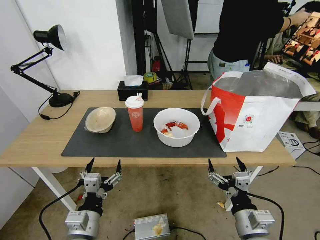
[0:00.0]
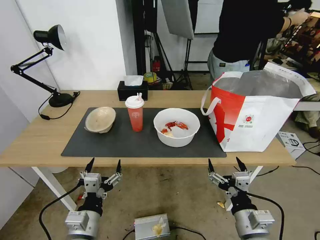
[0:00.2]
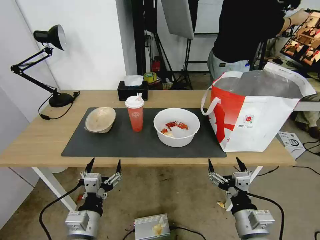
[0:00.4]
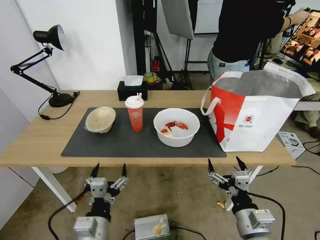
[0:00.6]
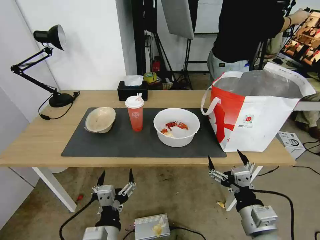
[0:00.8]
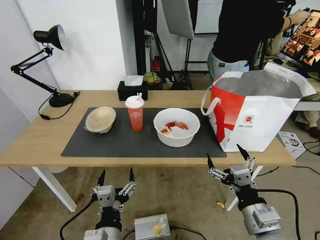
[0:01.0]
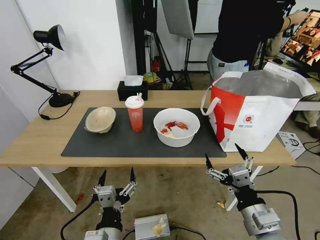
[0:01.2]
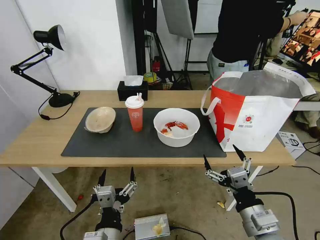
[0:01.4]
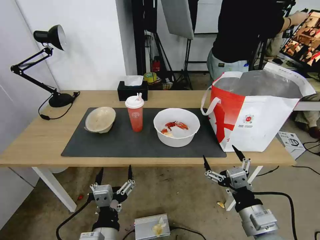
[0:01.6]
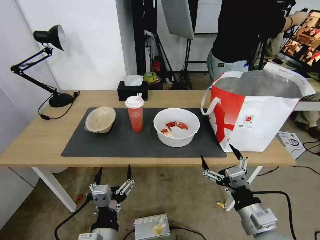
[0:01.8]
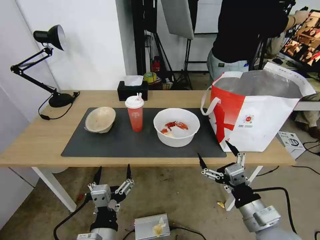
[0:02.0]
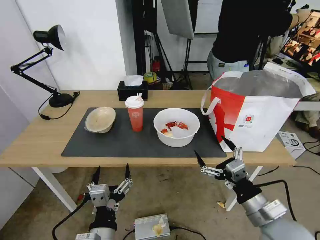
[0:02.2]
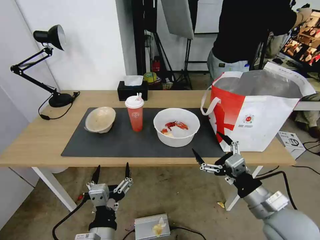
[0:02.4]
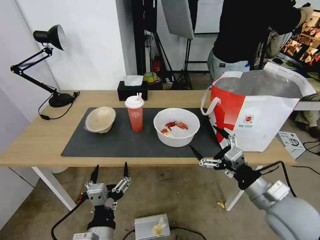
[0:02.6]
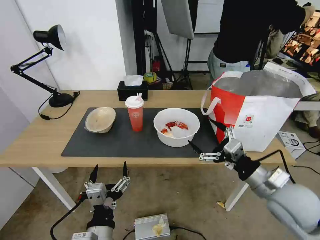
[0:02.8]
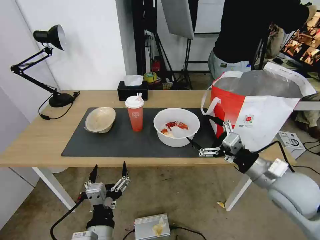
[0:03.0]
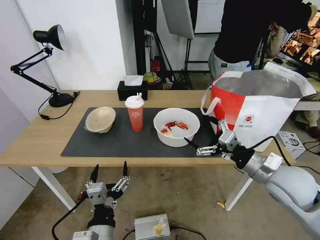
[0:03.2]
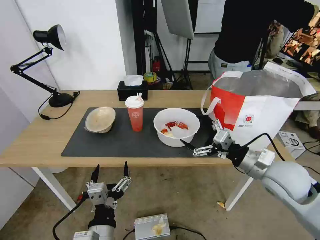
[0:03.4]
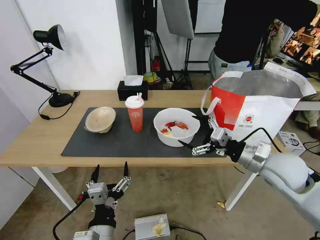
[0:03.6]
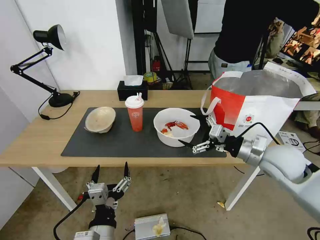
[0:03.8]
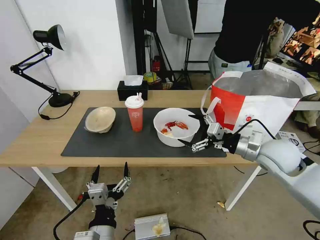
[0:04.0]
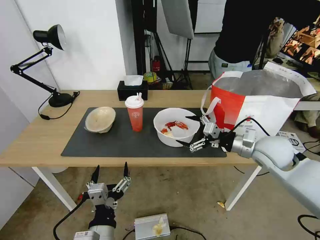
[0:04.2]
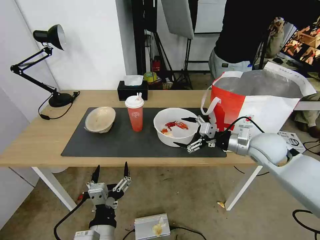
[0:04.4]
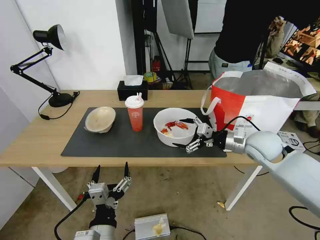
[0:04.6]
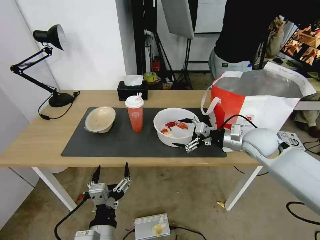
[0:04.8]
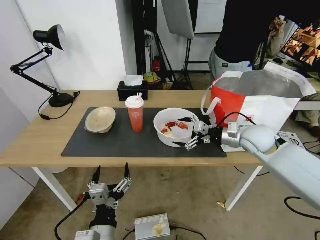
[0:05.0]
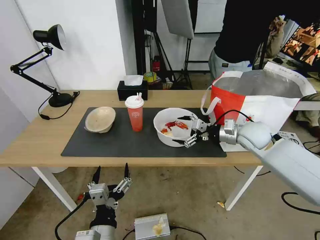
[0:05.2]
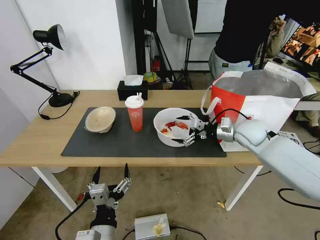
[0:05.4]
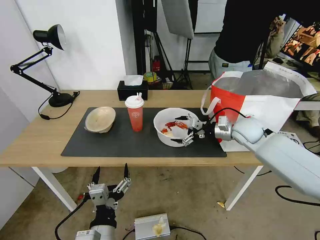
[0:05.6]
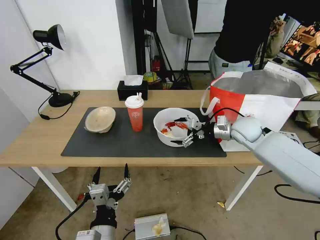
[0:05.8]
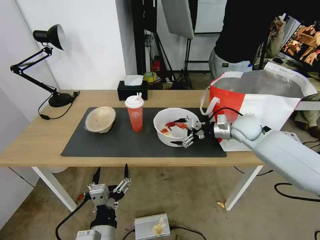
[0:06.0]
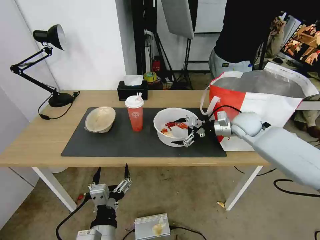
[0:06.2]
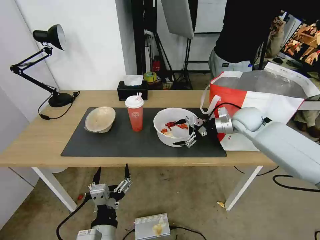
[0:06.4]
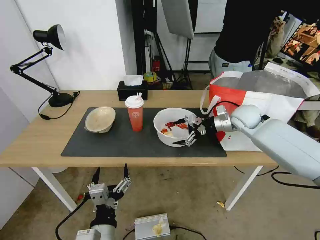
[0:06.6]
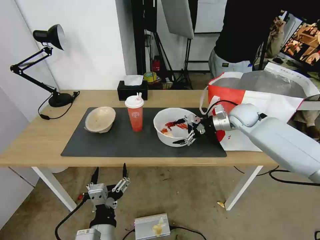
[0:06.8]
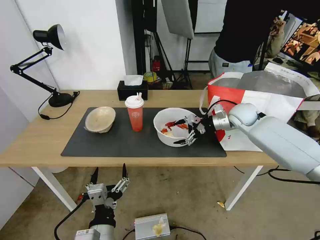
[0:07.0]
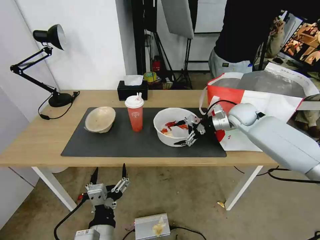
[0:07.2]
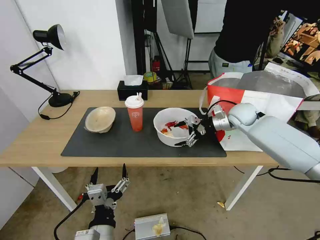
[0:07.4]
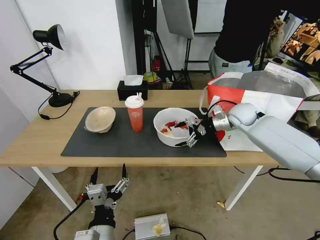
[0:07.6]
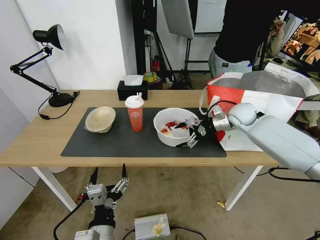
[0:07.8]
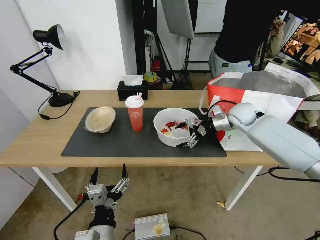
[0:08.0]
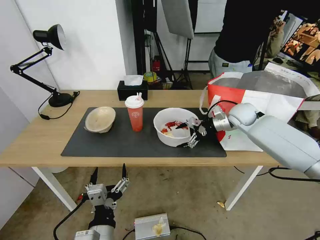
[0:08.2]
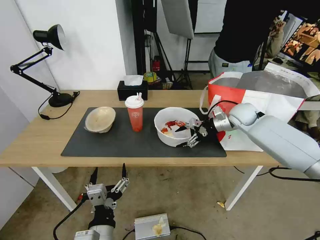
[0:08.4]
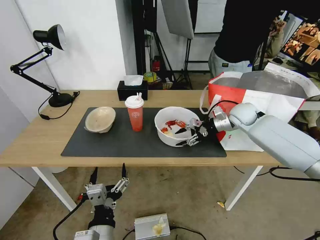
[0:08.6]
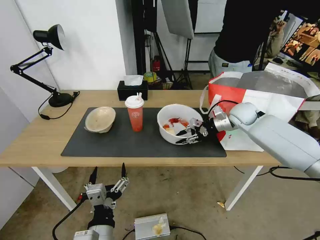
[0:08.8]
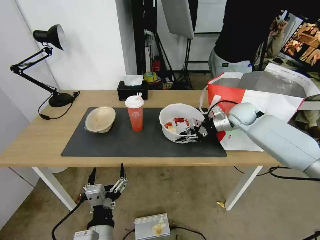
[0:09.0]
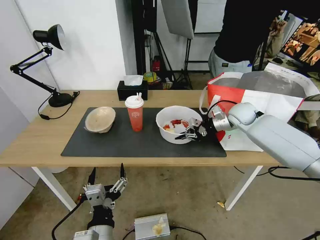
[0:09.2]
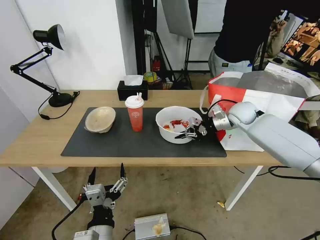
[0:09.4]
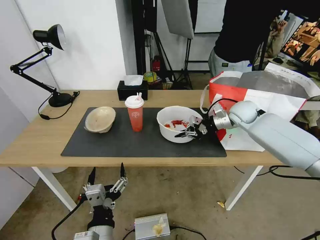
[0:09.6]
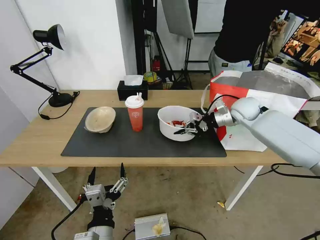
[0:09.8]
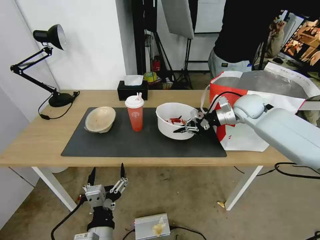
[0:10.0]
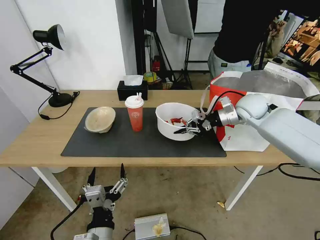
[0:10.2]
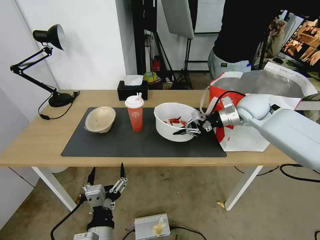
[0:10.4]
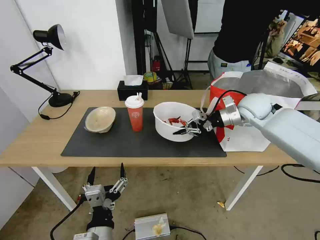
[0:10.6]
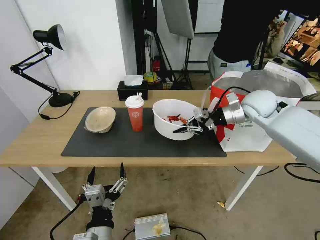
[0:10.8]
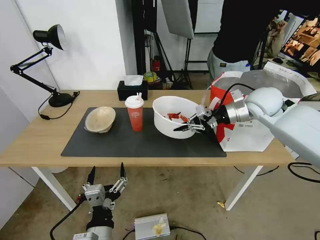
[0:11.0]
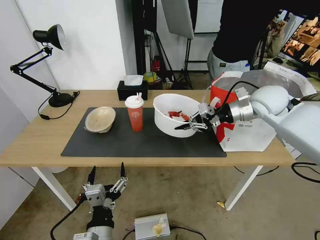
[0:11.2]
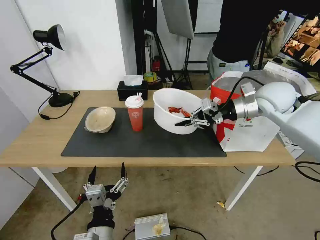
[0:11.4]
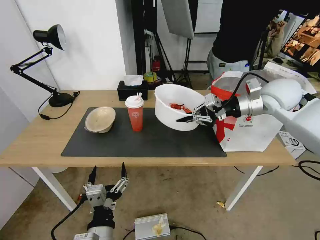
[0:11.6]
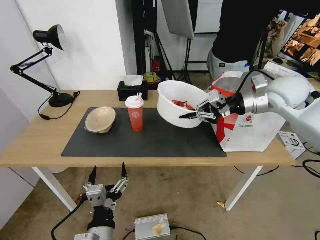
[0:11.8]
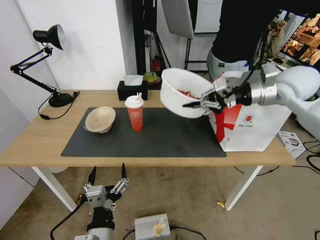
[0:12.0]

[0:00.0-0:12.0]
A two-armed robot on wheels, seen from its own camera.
Task of the whole recording: Pick up the trash from the table and place it into the takeout bag.
0:01.6 to 0:03.0: The right gripper shifts some 15 cm forward, to the right and upward.
0:03.0 to 0:04.4: The right gripper heads forward, covering about 15 cm.
0:04.4 to 0:06.0: The right gripper goes about 10 cm forward.
0:06.0 to 0:07.6: The right gripper shifts about 5 cm forward.
0:07.6 to 0:09.0: The right gripper closes its fingers.
0:09.0 to 0:10.4: The right gripper moves upward, roughly 5 cm.
0:10.4 to 0:12.0: The right gripper travels upward by roughly 10 cm.

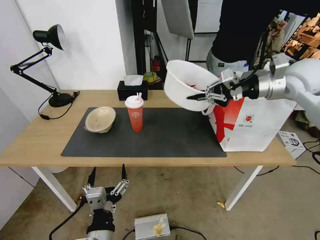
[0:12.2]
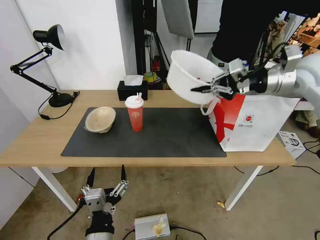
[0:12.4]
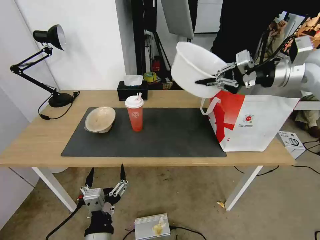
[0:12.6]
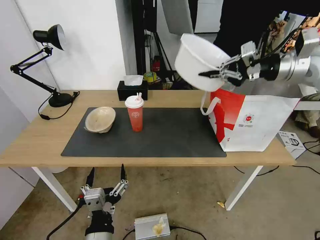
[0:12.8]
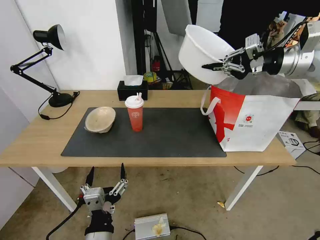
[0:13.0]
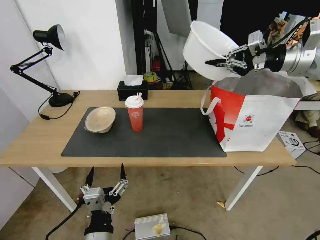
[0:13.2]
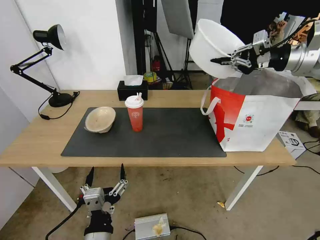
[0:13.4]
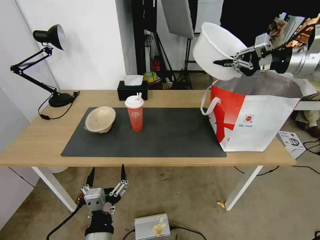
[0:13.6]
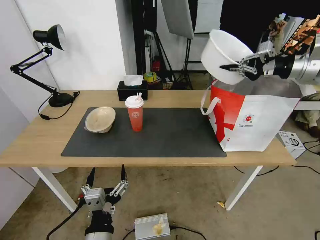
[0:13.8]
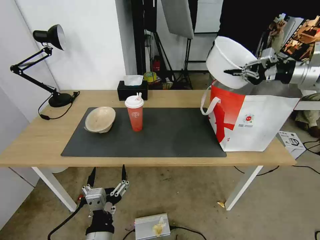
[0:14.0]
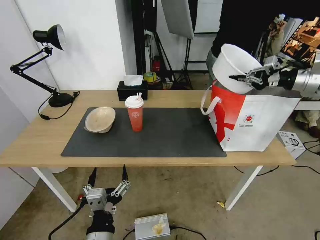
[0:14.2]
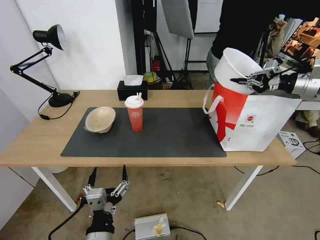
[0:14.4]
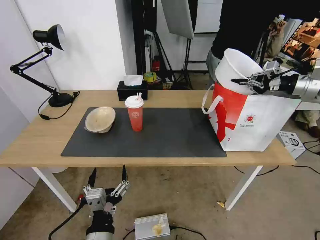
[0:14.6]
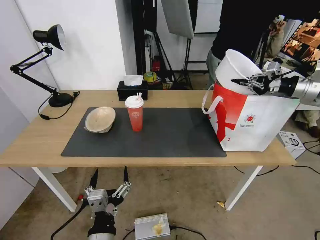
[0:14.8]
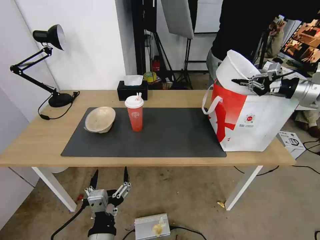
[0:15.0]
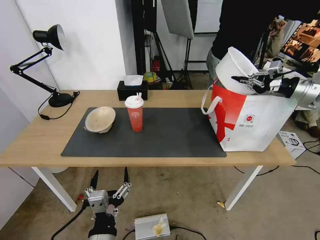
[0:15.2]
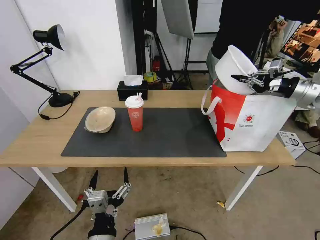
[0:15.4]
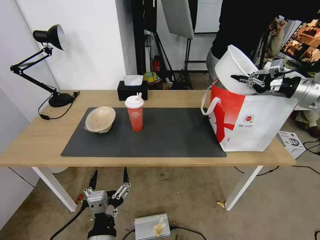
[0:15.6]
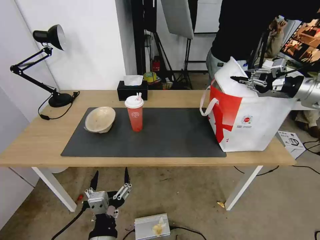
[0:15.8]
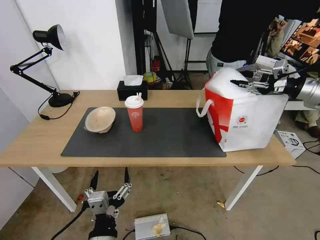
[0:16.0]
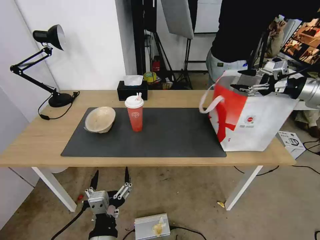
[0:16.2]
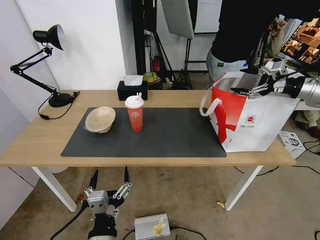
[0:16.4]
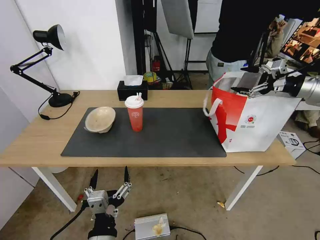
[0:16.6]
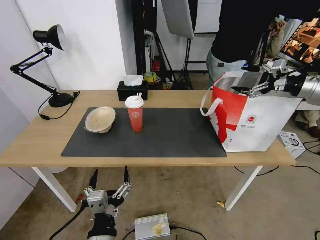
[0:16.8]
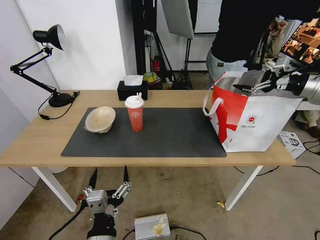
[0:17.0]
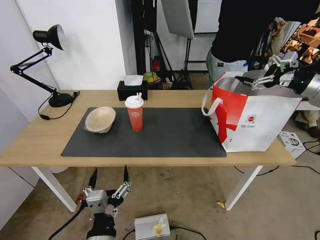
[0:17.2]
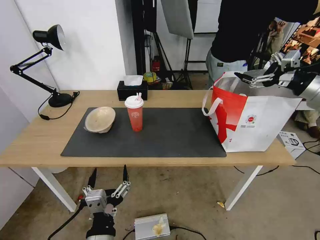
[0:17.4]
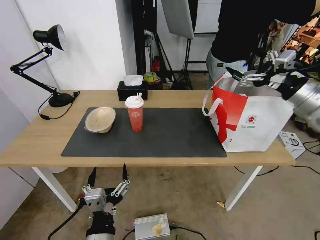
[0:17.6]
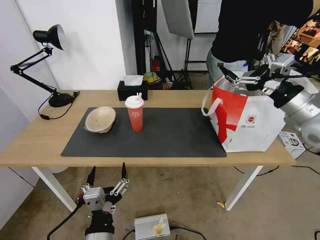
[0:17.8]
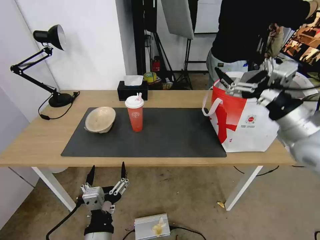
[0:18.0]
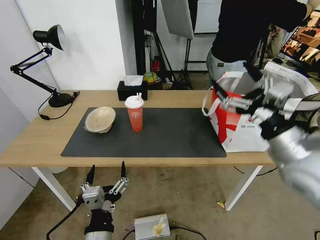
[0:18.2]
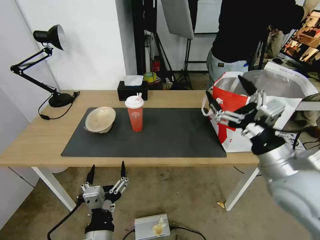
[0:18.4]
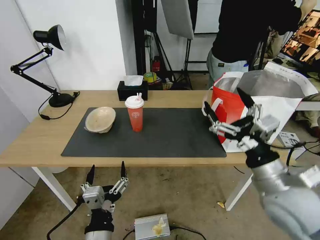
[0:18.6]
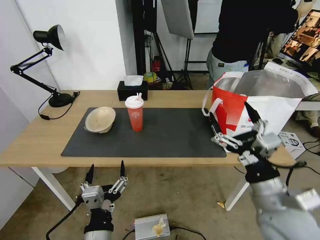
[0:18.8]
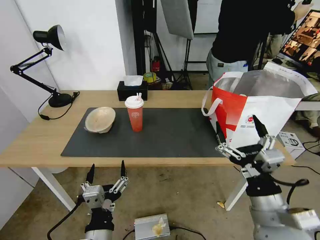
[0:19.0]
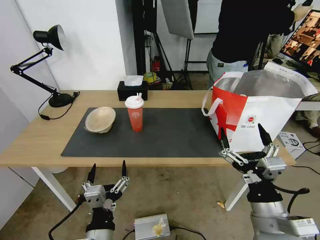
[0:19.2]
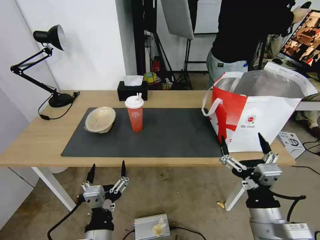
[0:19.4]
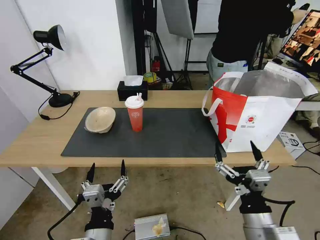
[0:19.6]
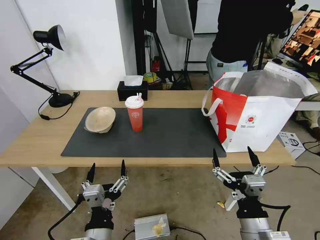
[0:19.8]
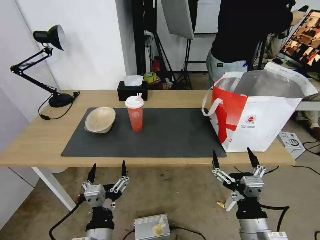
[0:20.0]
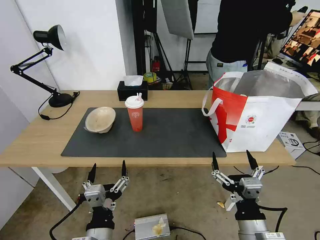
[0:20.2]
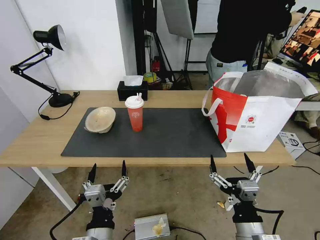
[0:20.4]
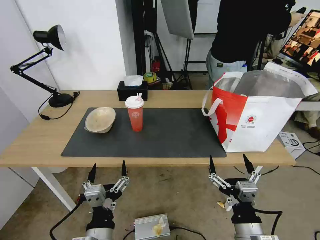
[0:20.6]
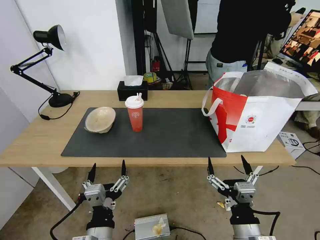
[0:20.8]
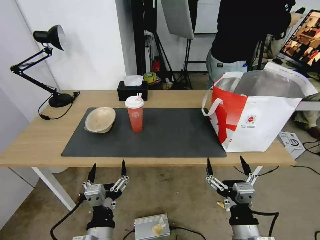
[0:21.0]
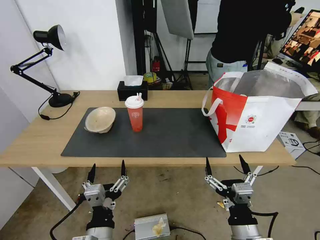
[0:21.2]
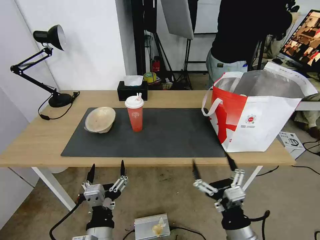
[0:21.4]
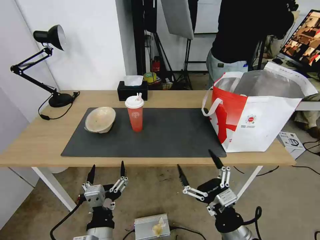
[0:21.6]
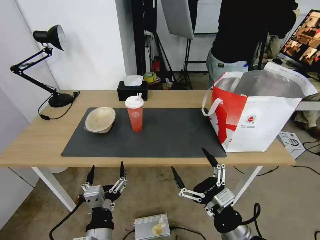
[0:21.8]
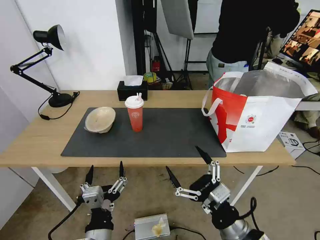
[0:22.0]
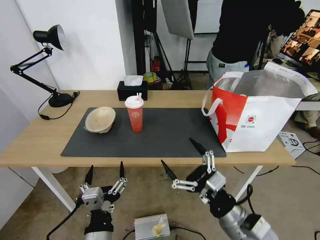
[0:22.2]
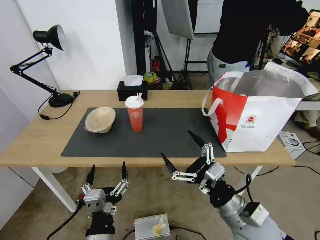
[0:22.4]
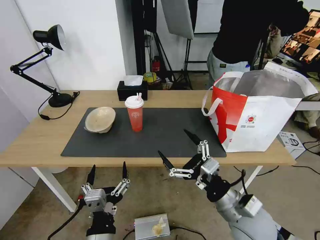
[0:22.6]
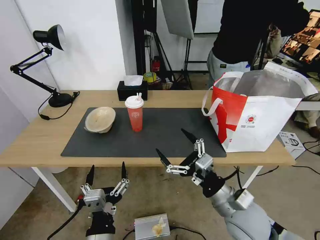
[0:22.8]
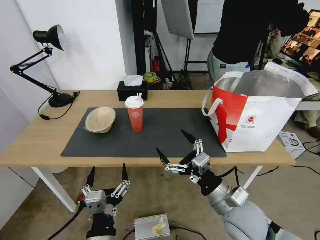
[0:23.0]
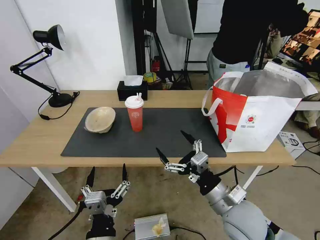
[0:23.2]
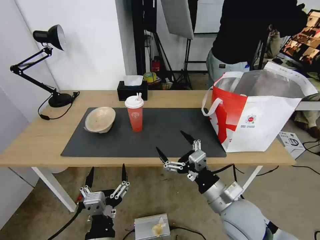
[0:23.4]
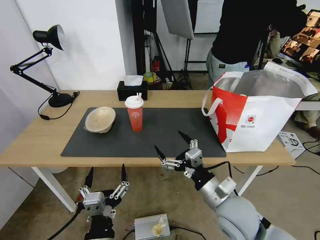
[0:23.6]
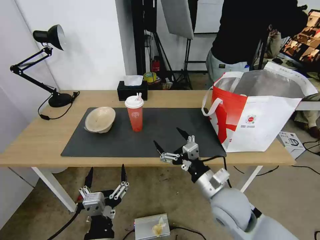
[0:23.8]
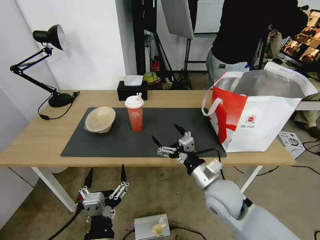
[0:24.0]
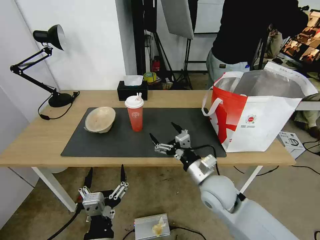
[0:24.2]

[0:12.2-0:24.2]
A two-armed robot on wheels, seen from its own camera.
Task of the whole recording: Pick up the trash from the table and place it into the takeout bag.
0:12.2 to 0:13.8: The right gripper travels to the right by approximately 10 cm.
0:13.8 to 0:15.2: The right gripper moves downward and to the right, about 10 cm.
0:15.2 to 0:16.6: The right gripper opens up.
0:16.6 to 0:18.2: The right gripper travels backward and to the left by approximately 30 cm.
0:18.2 to 0:19.8: The right gripper moves downward, backward and to the left, about 25 cm.
0:19.8 to 0:21.2: There are only small adjustments of the grippers.
0:21.2 to 0:22.6: The right gripper shifts roughly 10 cm forward.
0:22.6 to 0:24.2: The right gripper shifts some 10 cm forward and to the left.
